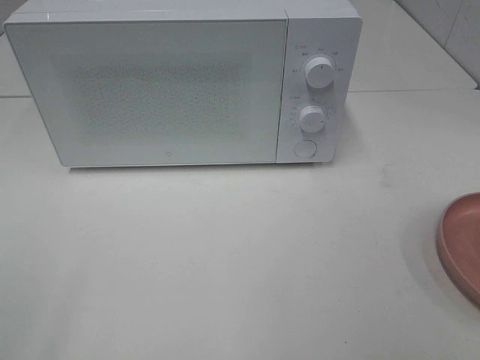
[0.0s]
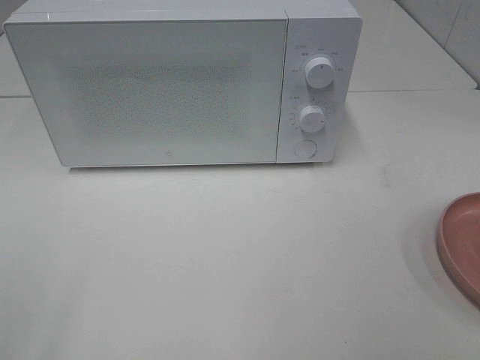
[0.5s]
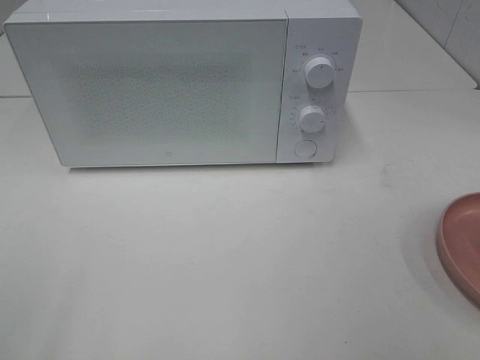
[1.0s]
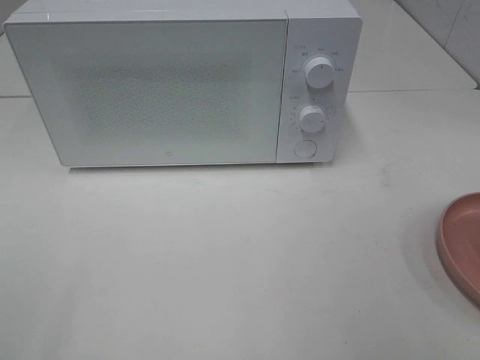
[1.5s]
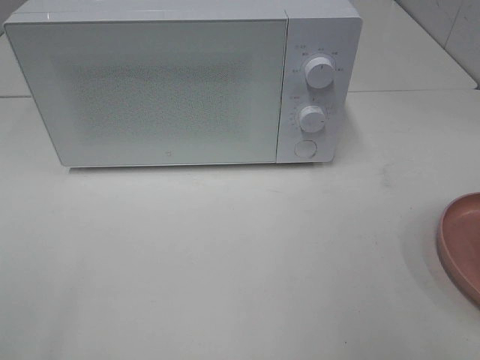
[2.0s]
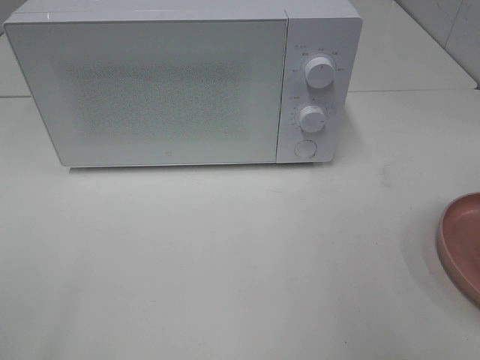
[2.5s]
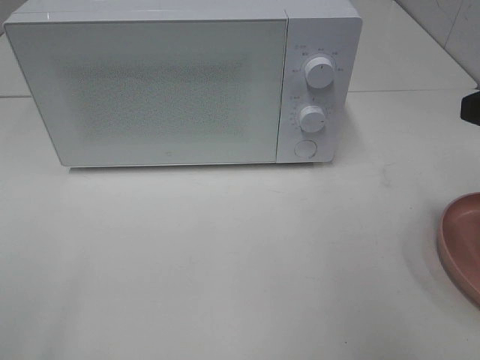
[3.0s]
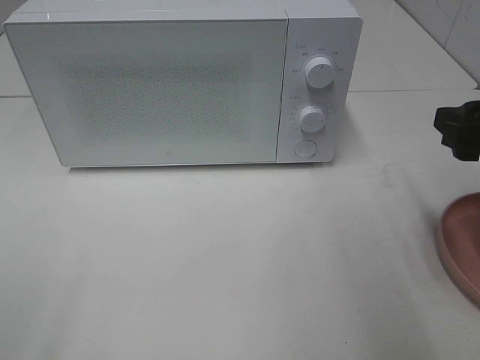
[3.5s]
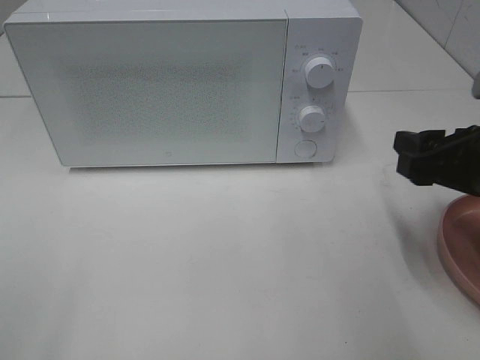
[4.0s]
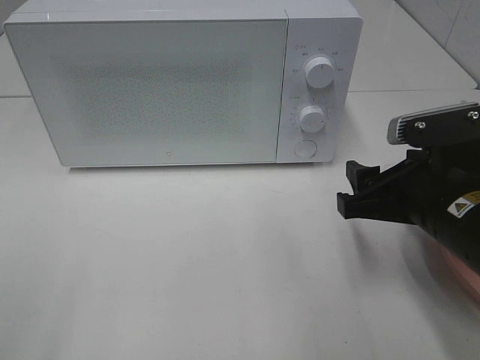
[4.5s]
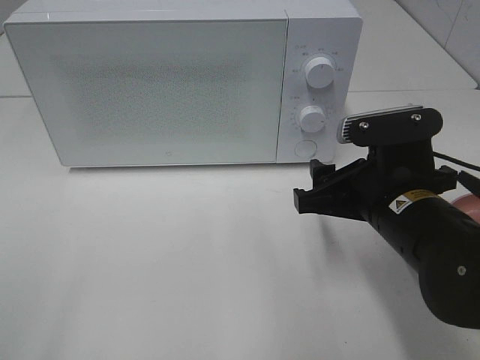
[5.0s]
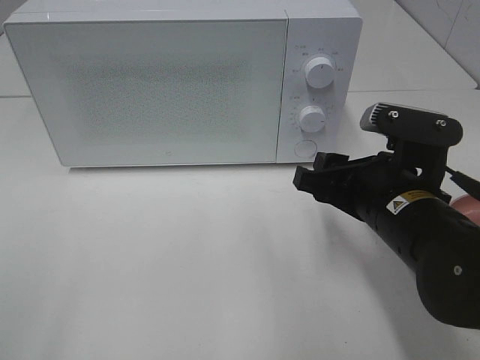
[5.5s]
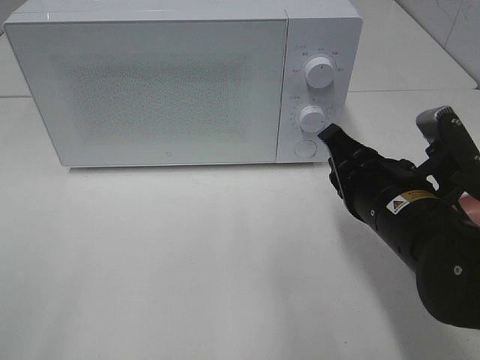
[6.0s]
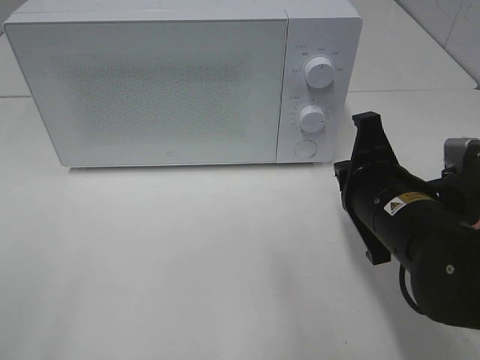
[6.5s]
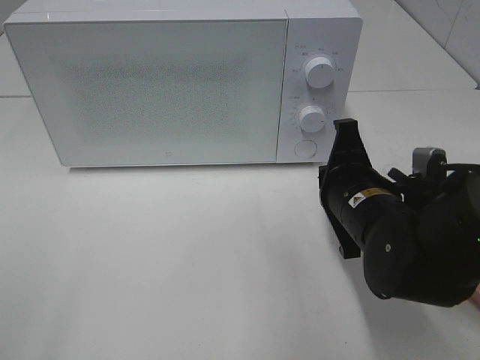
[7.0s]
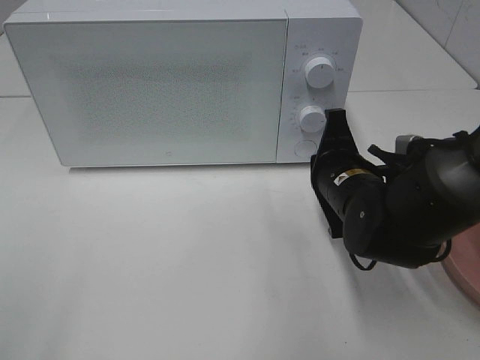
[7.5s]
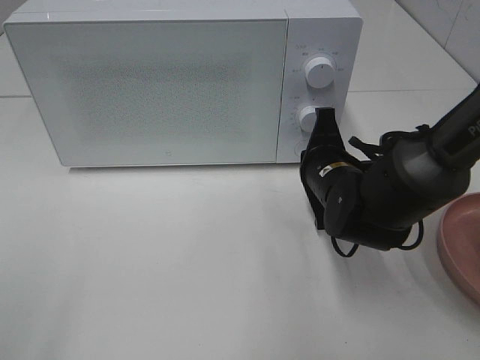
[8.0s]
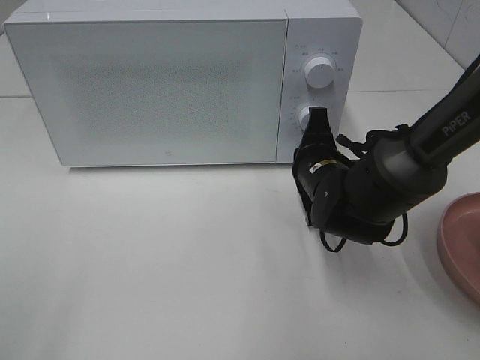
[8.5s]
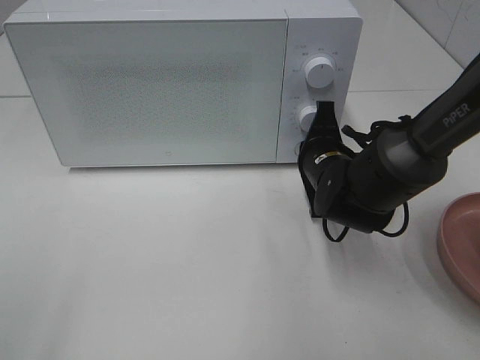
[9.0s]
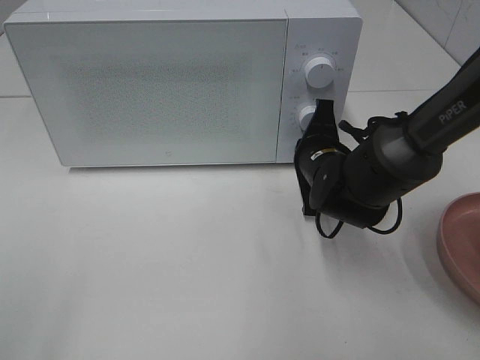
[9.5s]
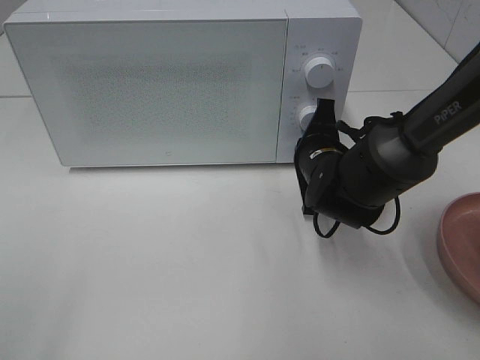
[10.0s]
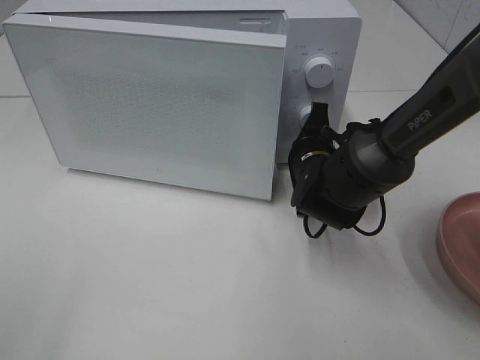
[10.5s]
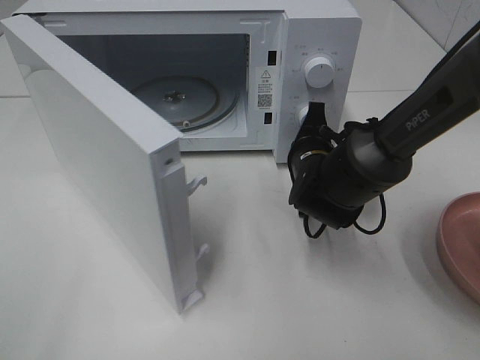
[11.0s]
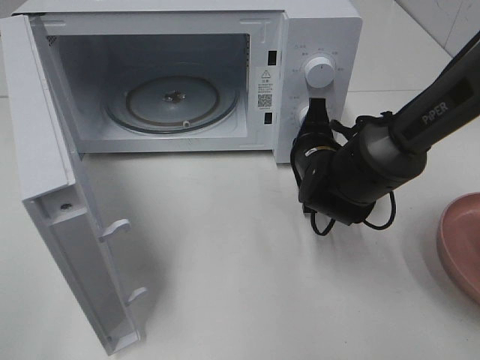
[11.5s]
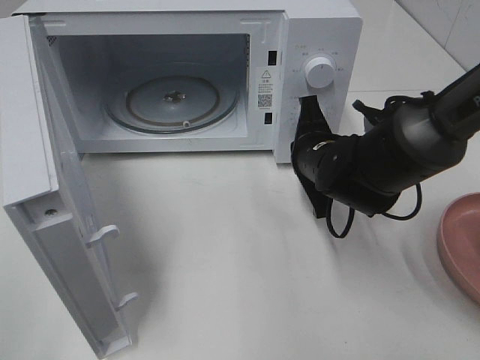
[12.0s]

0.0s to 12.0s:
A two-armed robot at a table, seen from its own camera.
Task of the whole recording: Heat the burger.
Step, 0.0s to 11.5s: Right hand: press the switch.
2.0s to 4.0s: The right gripper heads downward and forward, covering about 15 cm.
4.0s to 6.0s: The right gripper moves to the left, about 10 cm, and closes its fingers.
6.0s to 8.0s: The right gripper goes about 10 cm forward and downward.
8.0s to 10.0s: The grippers make only small movements.

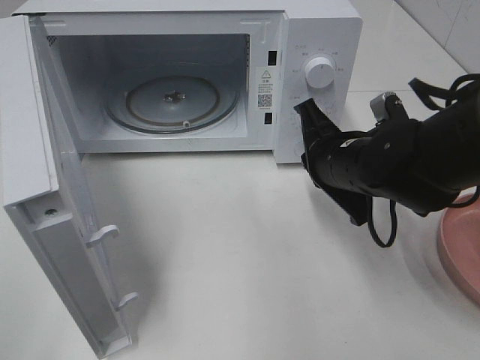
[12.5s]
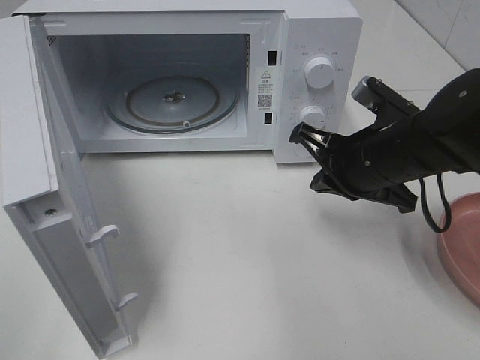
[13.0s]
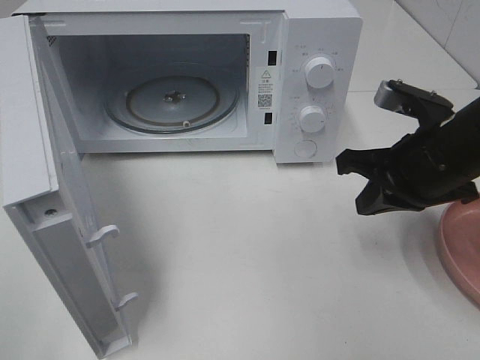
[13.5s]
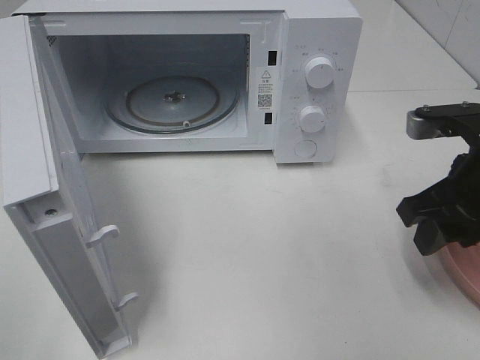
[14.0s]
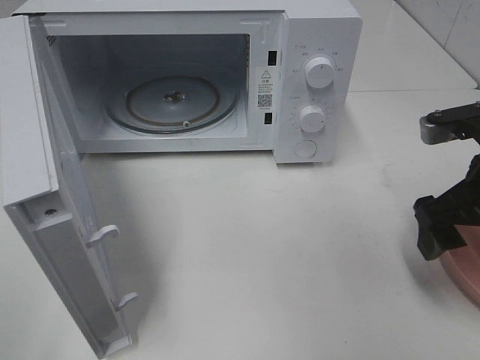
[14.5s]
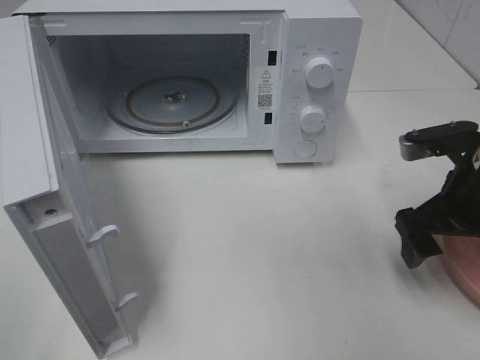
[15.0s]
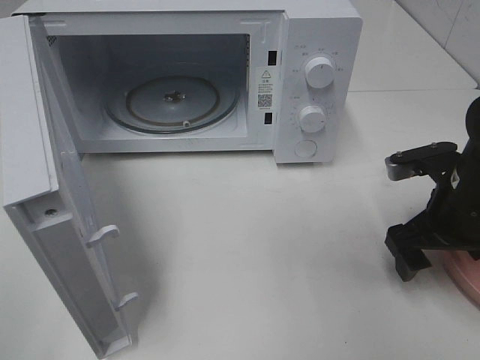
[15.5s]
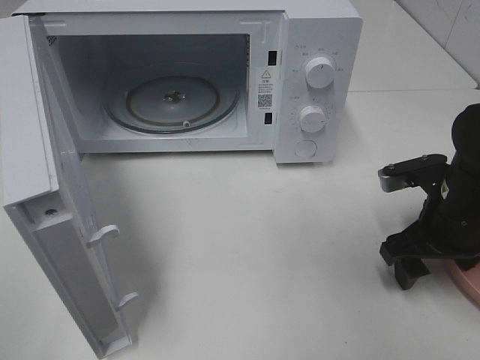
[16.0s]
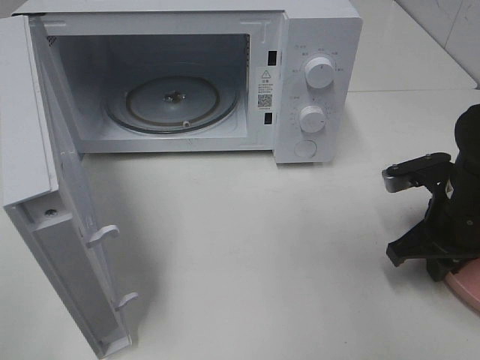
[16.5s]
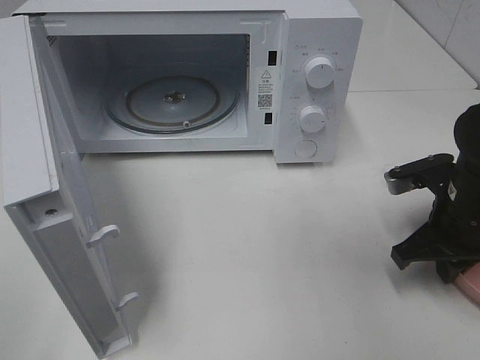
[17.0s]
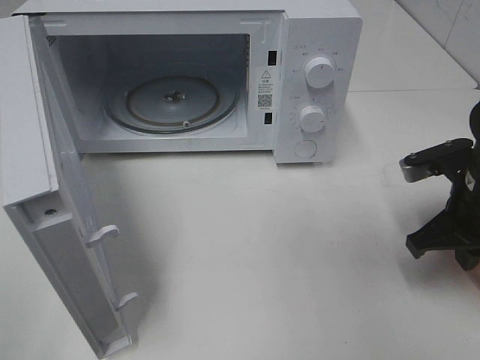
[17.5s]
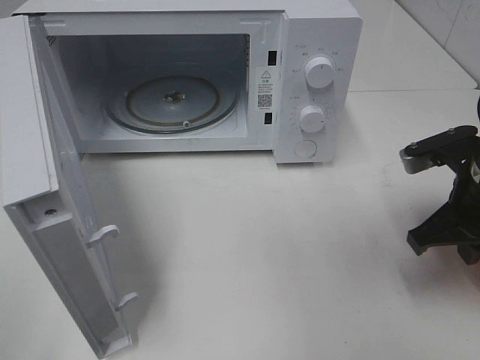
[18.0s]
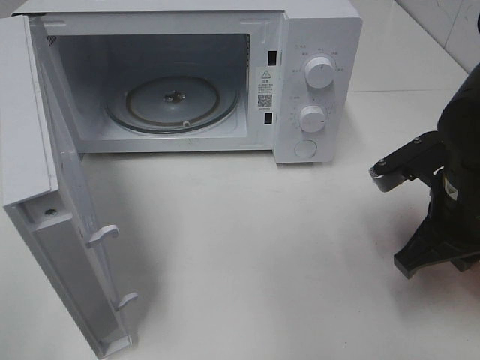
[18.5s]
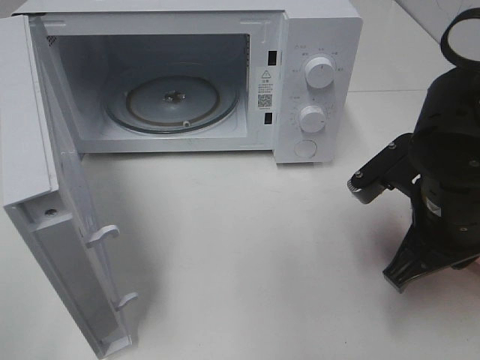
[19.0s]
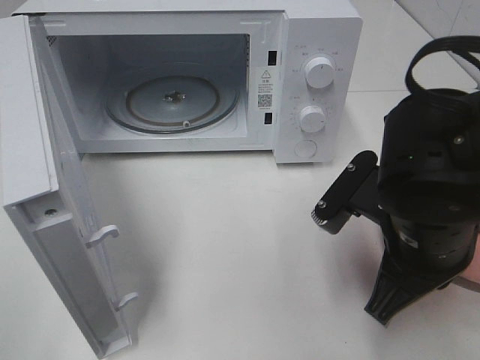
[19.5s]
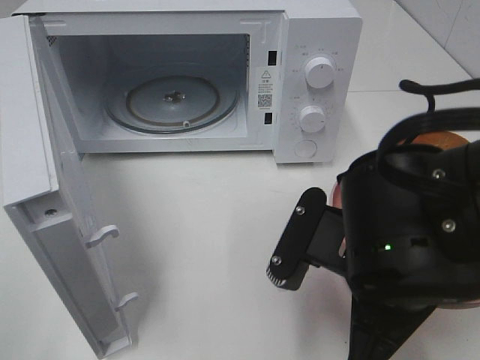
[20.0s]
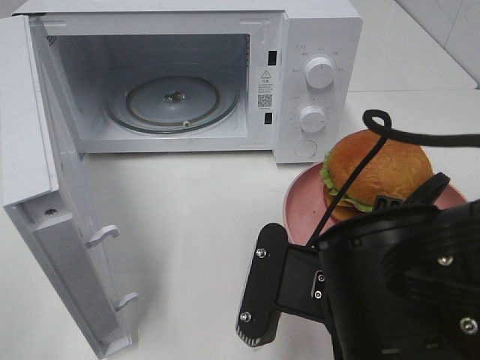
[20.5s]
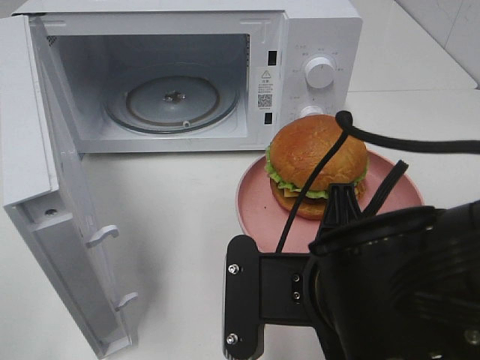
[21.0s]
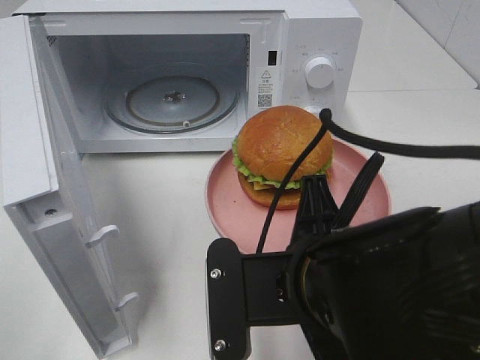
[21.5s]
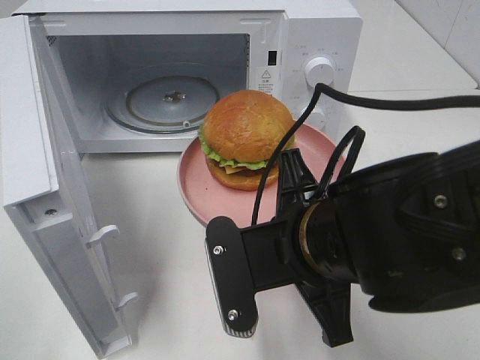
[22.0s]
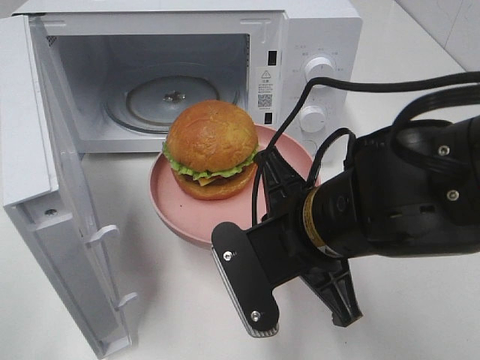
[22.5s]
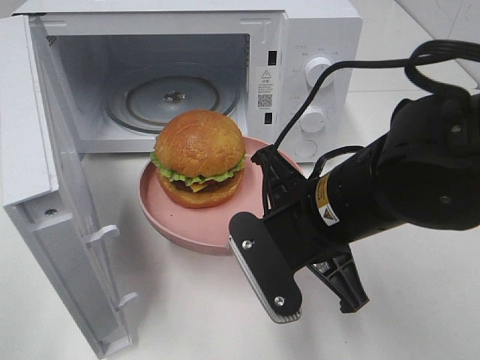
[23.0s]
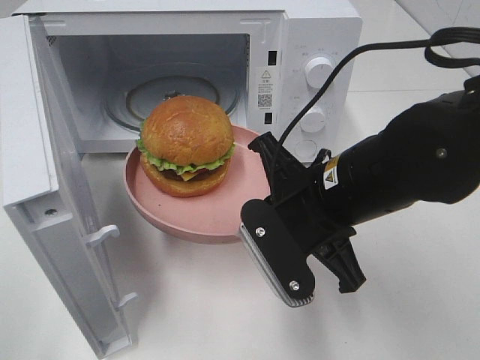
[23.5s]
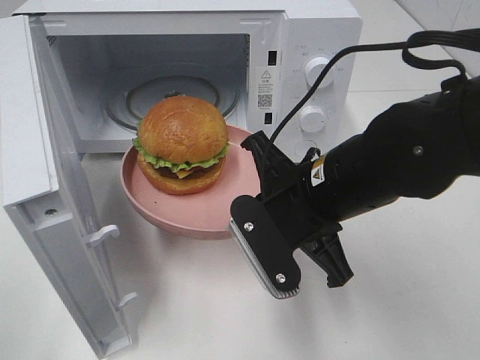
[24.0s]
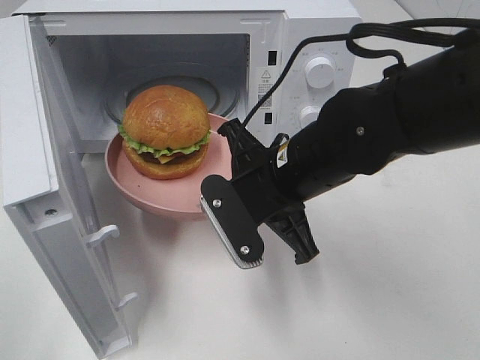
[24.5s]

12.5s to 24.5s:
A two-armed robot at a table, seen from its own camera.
Task of the whole recording: Heat the burger.
Step, 12.5s to 16.5s: Right hand: grab the plate with the hamburger.
12.5s to 14.5s: The right gripper is displaced to the right, backward and upward by roughly 15 cm, and opens.
14.5s to 16.5s: The right gripper shifts roughly 10 cm downward, and closes its fingers.
16.5s to 18.5s: The right gripper shifts approximately 5 cm upward.
18.5s to 20.5s: The right gripper heads to the left and backward, covering approximately 15 cm.
20.5s to 22.5s: The right gripper travels forward by about 5 cm.
22.5s to 24.5s: The right gripper travels forward by about 10 cm.

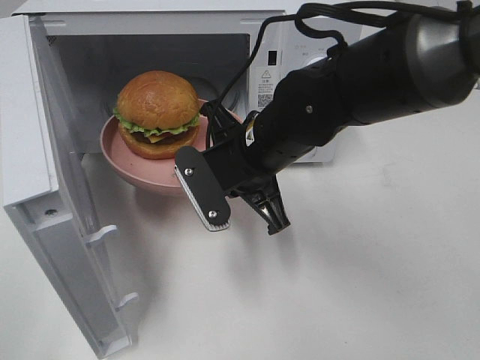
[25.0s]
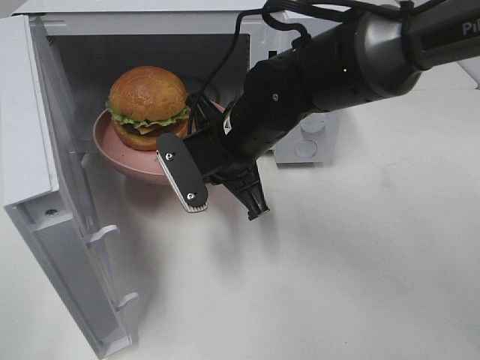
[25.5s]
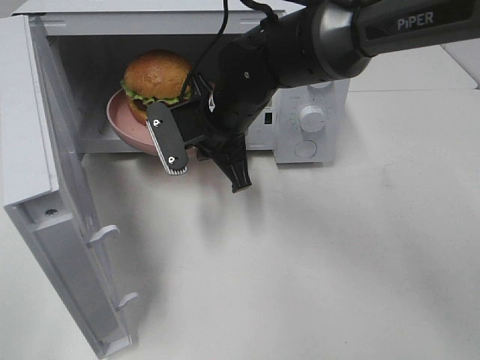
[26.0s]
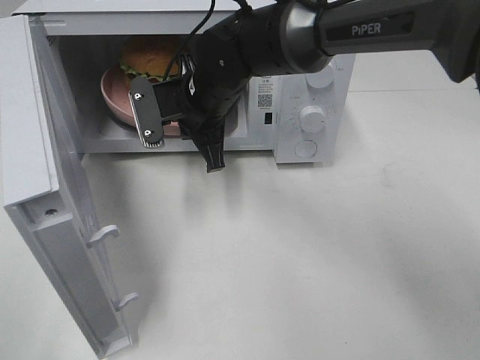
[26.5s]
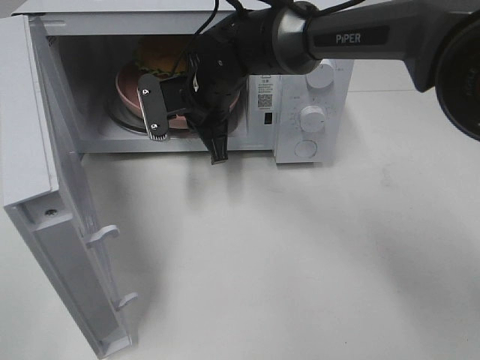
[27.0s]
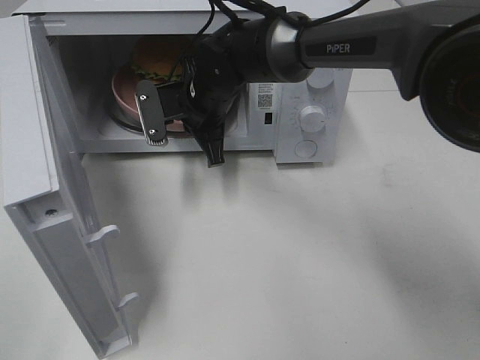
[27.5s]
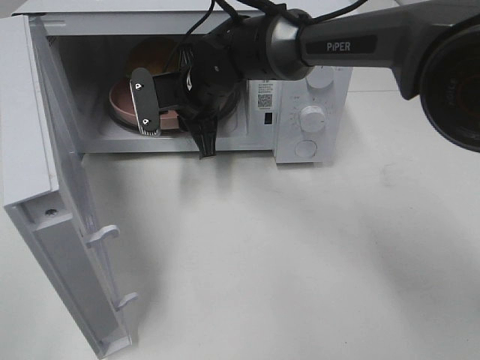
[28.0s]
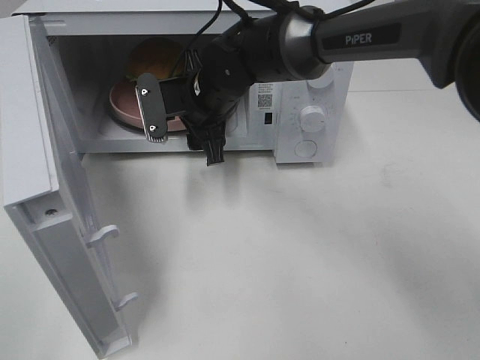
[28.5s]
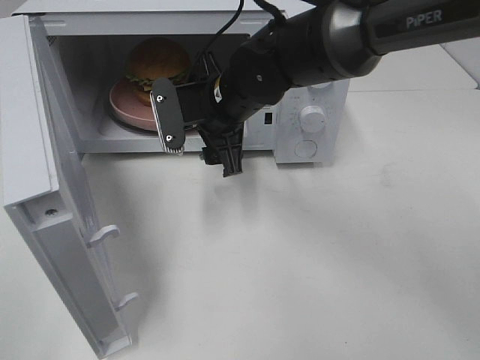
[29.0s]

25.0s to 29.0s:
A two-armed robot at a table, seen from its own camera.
Task of the whole recording: Heat the burger.
Step, 25.0s to 28.0s: Right hand: place the plate in the microwave.
25.0s to 27.0s: The right gripper is displaced forward and to the left by about 15 cm.
27.0s to 29.0s: The right gripper changes place by approximately 5 cm, and opens its fingers.
